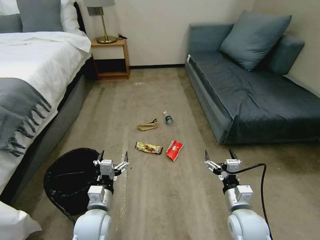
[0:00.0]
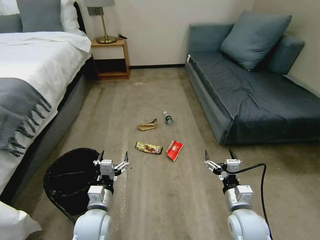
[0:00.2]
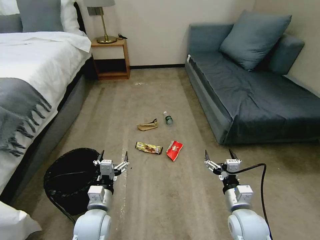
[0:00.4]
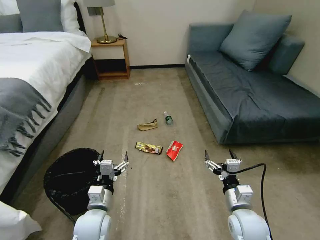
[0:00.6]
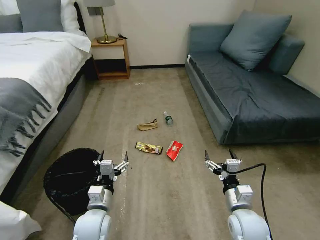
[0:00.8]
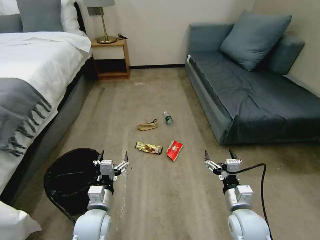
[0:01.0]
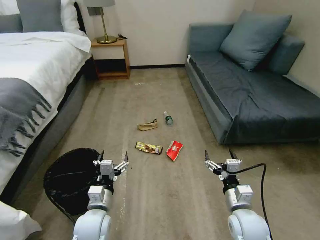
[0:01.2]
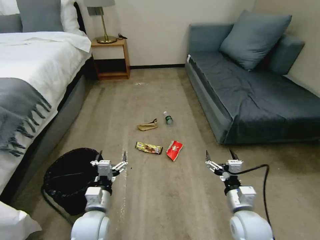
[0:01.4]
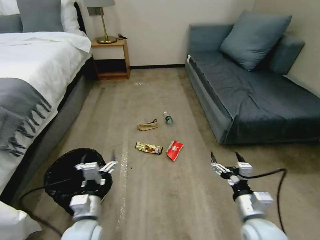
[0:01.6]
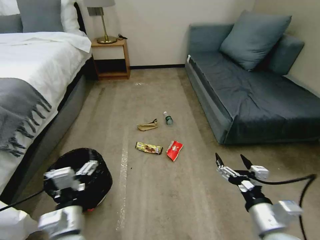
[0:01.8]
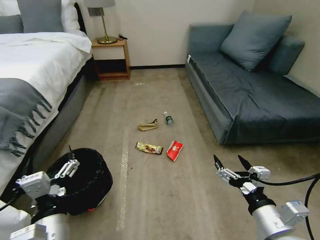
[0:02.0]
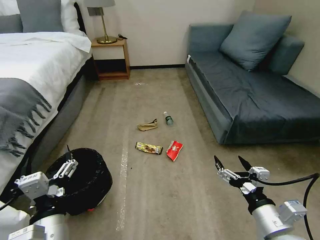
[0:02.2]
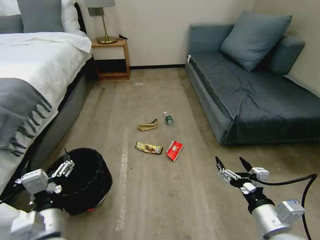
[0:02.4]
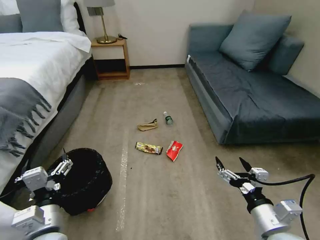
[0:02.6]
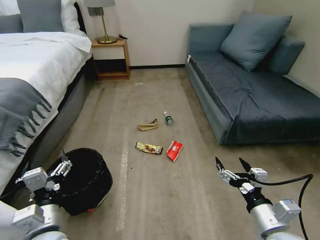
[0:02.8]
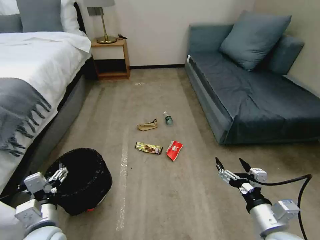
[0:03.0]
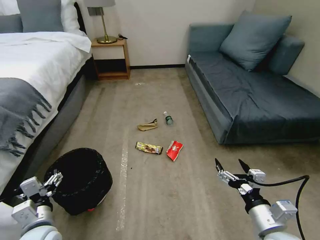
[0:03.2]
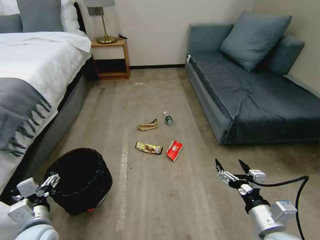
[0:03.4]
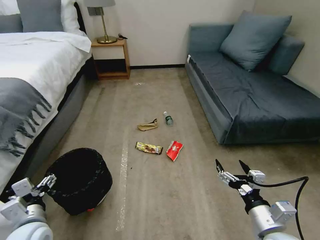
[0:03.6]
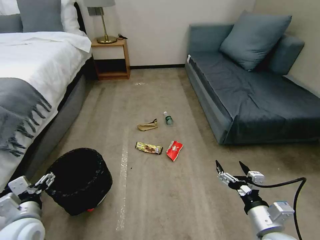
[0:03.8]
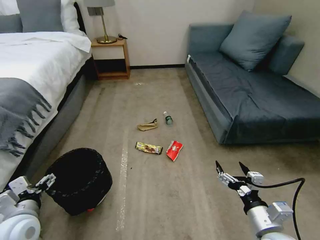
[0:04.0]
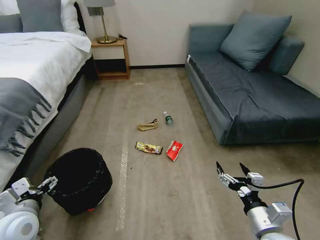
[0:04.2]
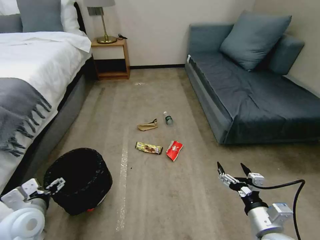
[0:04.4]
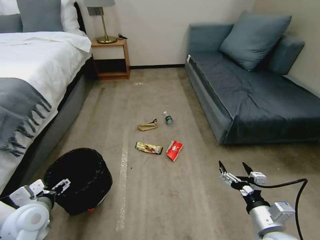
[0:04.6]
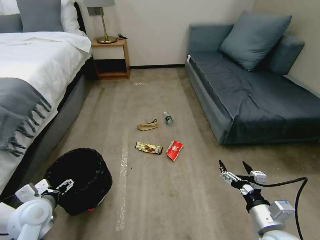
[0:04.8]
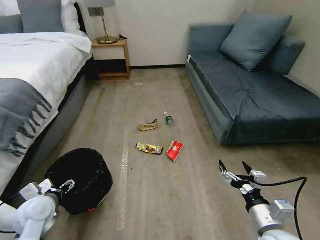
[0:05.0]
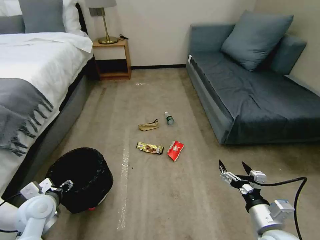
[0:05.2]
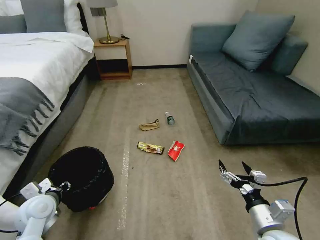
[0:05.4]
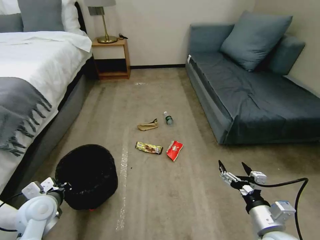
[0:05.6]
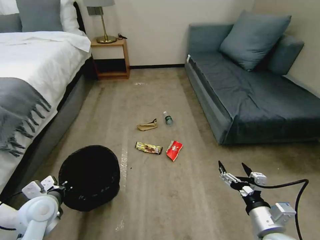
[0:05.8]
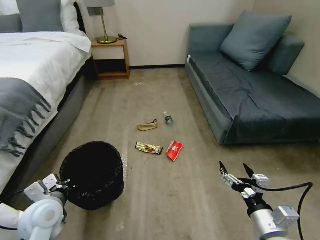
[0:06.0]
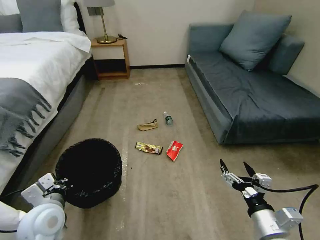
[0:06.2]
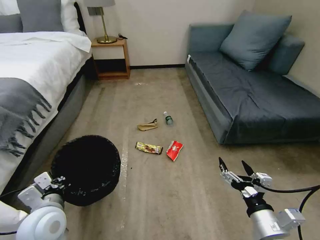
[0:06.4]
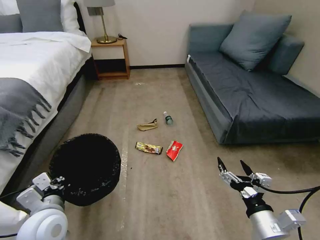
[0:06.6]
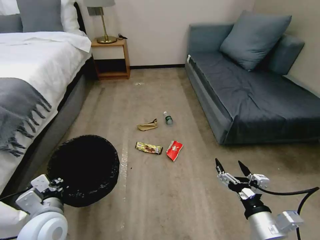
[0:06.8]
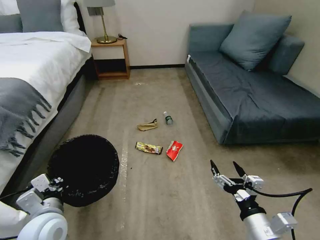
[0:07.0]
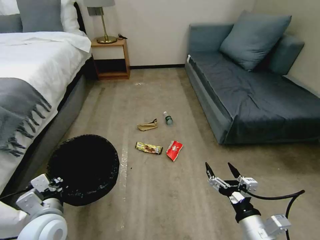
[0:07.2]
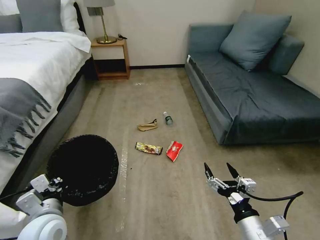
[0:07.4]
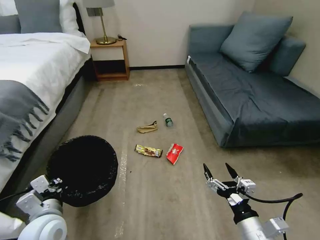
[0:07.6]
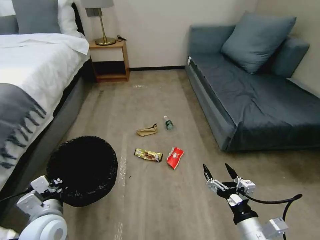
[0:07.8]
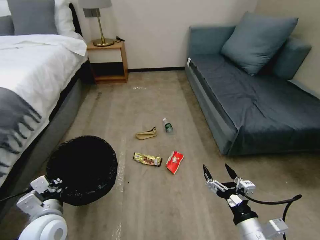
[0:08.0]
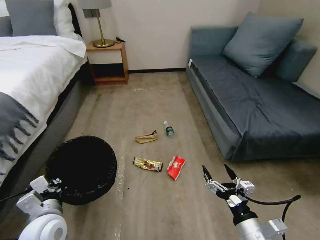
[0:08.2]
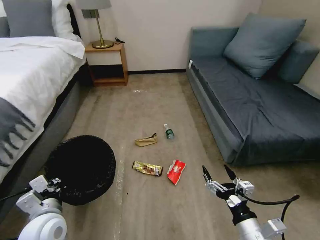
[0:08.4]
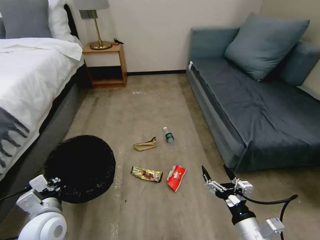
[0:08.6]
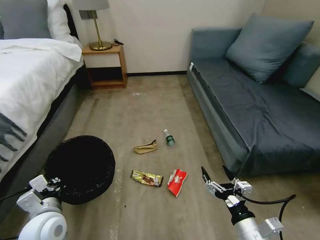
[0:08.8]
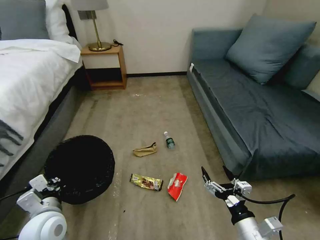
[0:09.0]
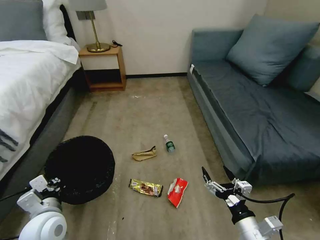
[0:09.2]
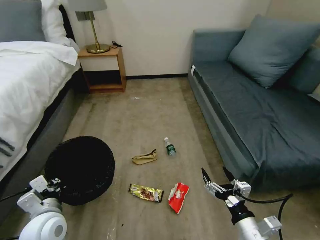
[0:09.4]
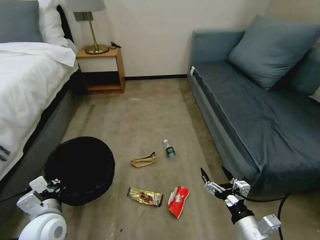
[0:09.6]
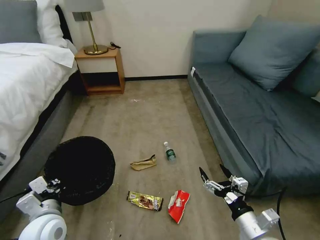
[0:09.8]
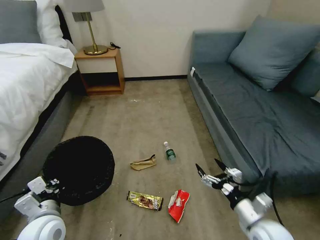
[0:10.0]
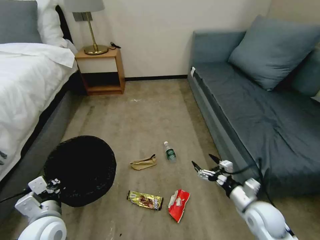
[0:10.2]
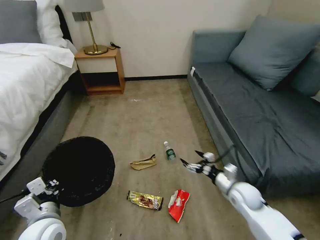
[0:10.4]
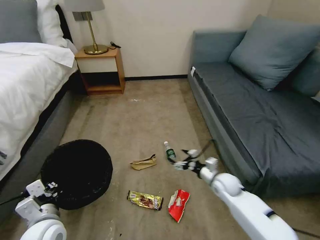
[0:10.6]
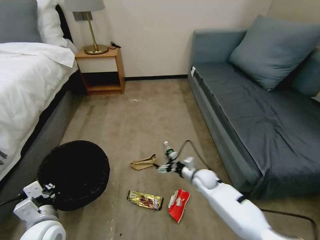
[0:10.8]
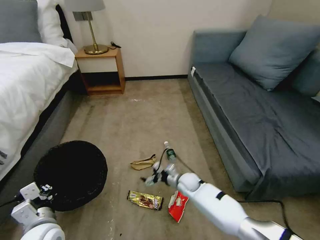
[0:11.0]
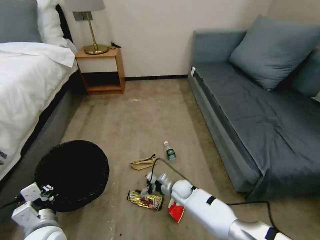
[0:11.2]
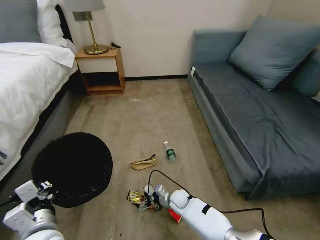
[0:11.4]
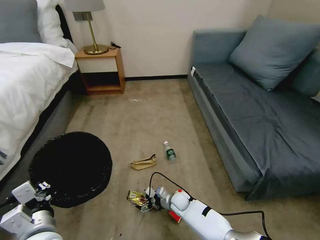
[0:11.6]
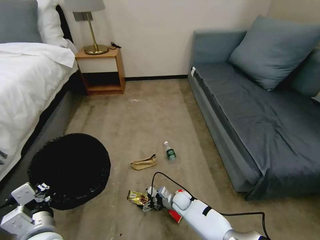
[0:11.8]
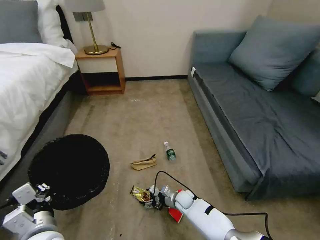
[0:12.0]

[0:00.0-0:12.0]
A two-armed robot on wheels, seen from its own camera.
Task of the whole recording: Pick up the trash bin, then pick up the garbage on the floor and place it into the trash bin.
0:01.6 to 0:03.0: The left gripper is displaced to the left by some 10 cm.
0:03.0 to 0:04.4: The left gripper is displaced to the left by about 5 cm.
0:04.4 to 0:06.0: The left gripper closes its fingers.
0:06.0 to 0:07.6: The left gripper moves about 5 cm.
0:09.0 to 0:10.4: The right gripper is displaced forward by roughly 20 cm.
0:10.4 to 0:12.0: The right gripper heads downward and to the left, covering some 25 cm.

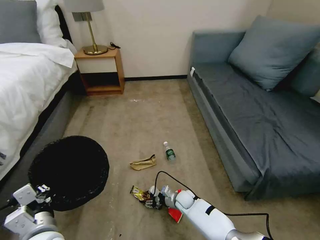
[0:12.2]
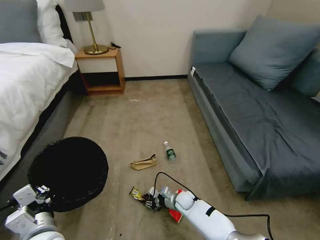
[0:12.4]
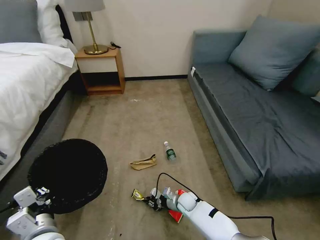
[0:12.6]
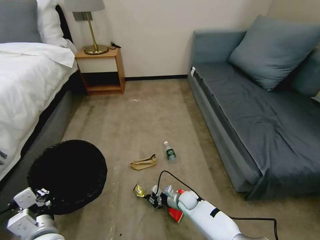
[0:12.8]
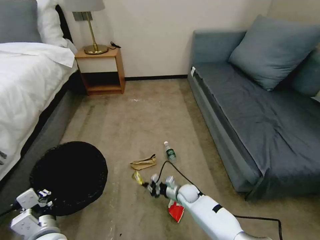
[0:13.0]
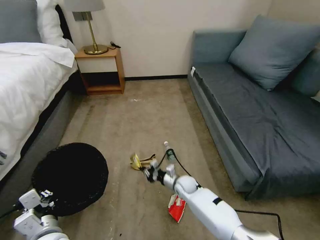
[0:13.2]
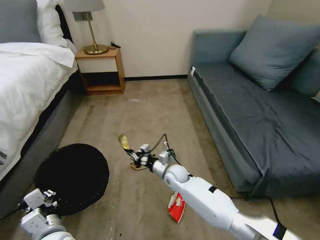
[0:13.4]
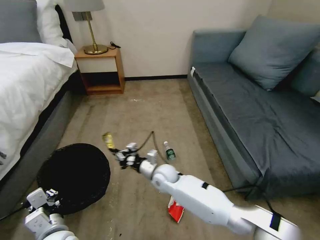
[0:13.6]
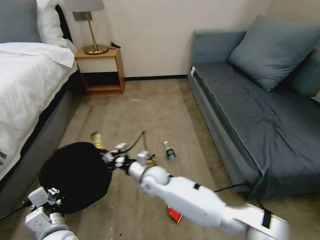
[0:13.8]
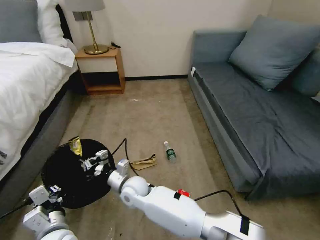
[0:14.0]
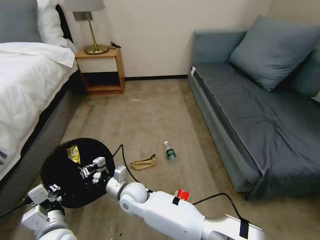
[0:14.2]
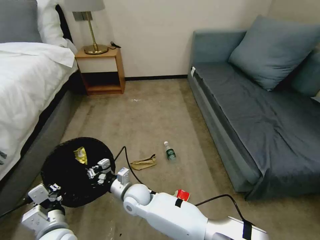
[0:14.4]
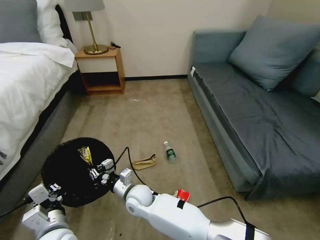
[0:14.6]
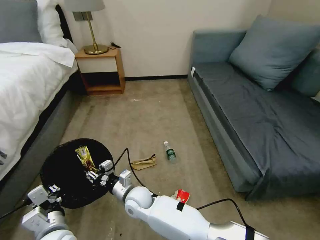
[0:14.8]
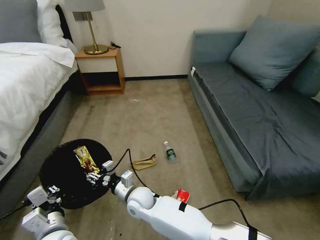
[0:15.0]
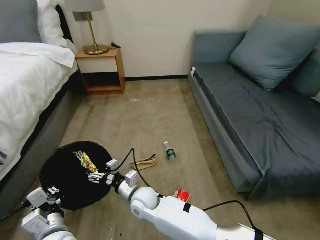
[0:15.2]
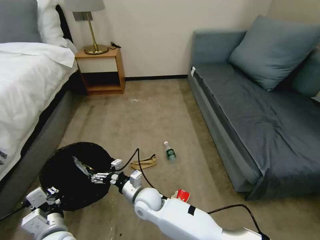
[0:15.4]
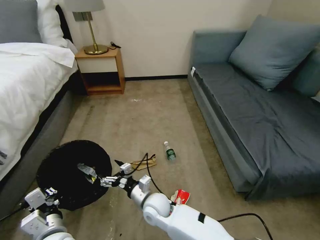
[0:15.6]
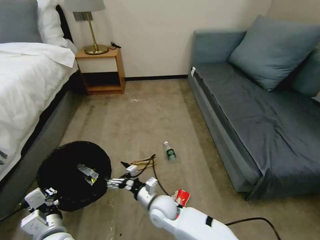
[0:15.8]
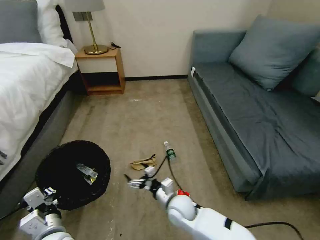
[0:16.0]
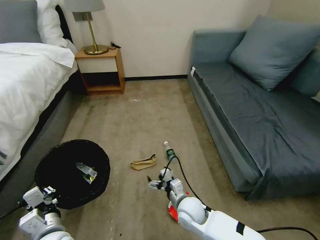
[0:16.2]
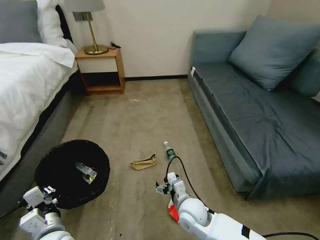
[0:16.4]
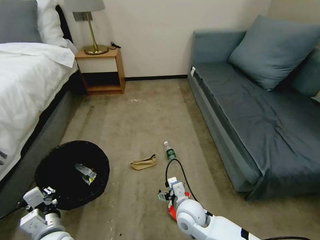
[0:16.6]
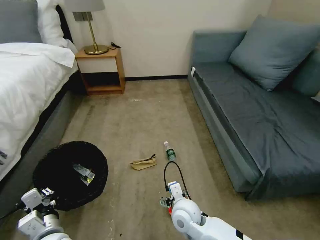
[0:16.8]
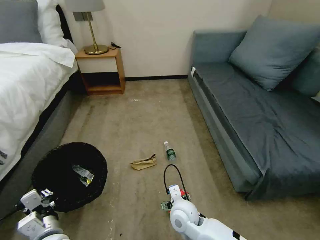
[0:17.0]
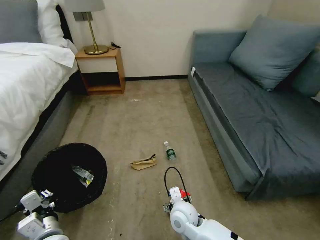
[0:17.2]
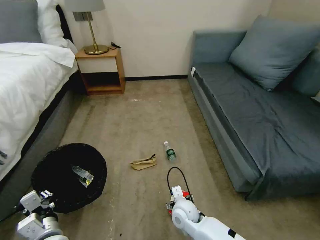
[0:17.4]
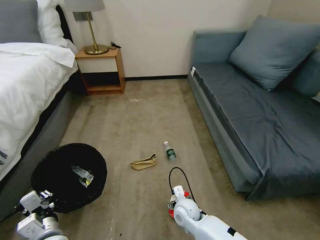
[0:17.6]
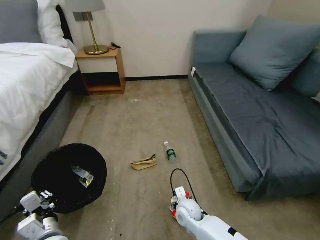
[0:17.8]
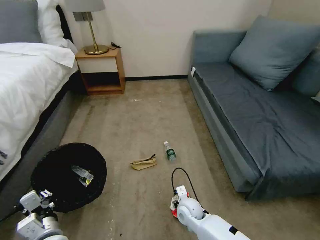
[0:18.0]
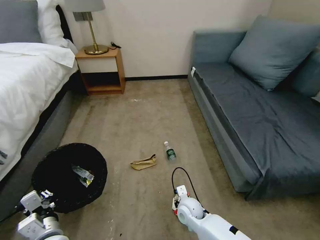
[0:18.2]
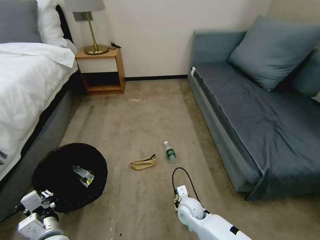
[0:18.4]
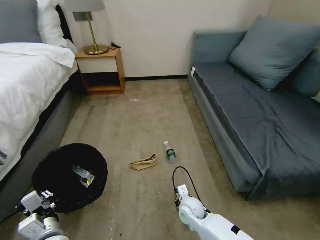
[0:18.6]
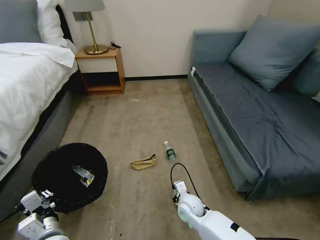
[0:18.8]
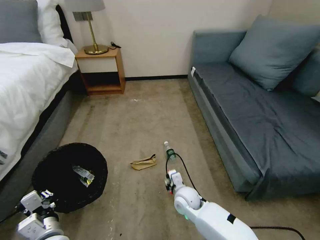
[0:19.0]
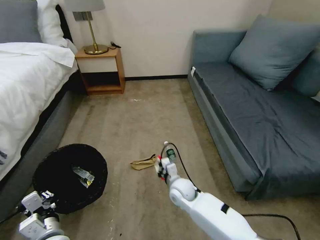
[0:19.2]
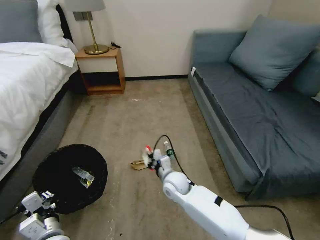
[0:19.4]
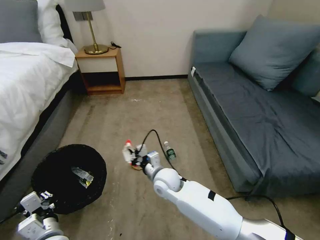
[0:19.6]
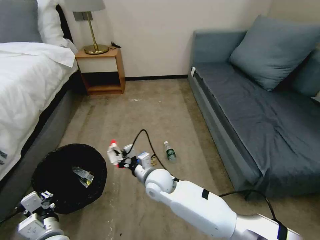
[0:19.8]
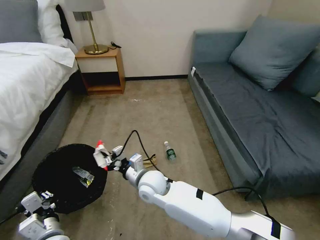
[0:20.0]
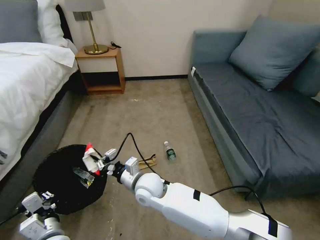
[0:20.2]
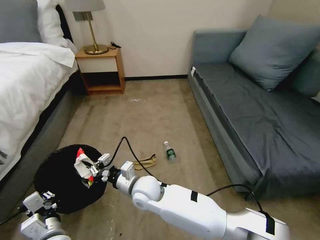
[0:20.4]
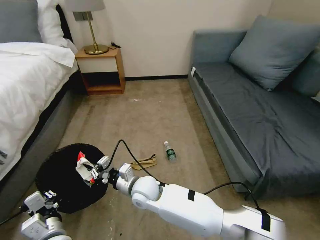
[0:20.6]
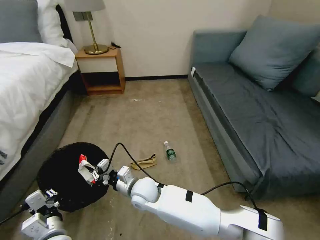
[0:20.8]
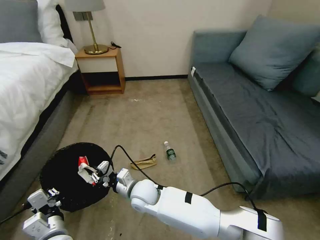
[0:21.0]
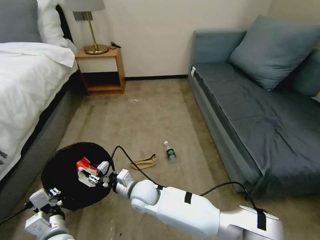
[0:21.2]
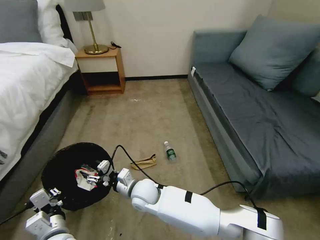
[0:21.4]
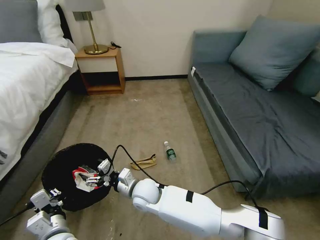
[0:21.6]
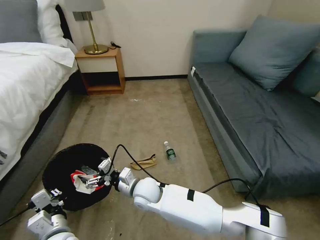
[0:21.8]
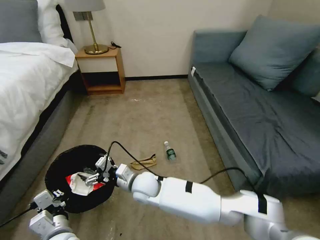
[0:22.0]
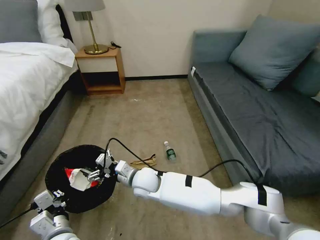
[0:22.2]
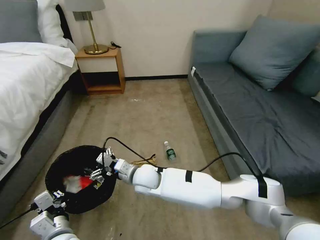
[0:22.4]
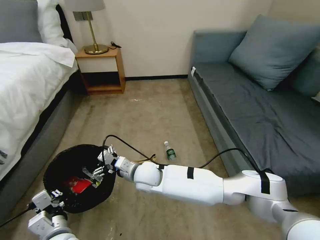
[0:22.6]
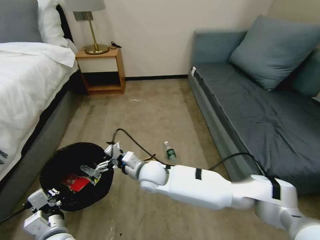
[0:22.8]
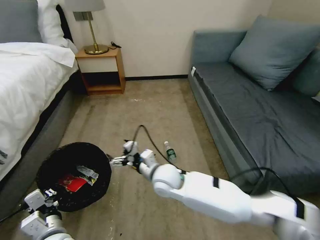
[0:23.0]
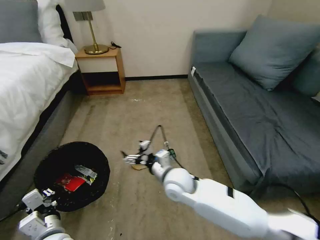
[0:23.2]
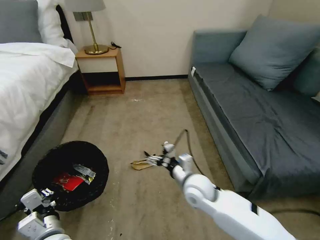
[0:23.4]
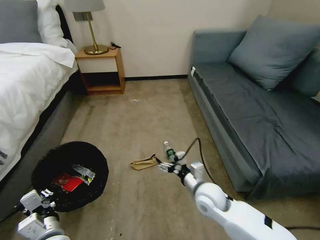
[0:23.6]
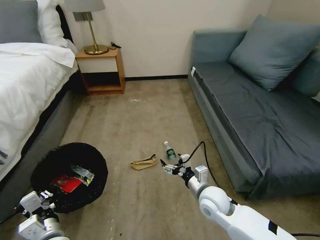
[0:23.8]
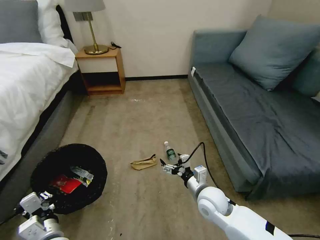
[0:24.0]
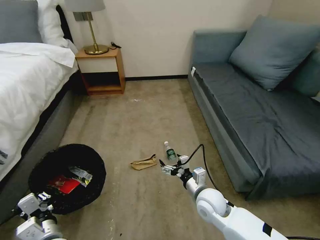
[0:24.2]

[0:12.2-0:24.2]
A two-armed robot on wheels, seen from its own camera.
Task of the whole recording: Pick up the trash bin, then pick up the garbage on the floor and place it into the trash bin.
0:12.2 to 0:13.8: The right gripper moves upward and to the left, some 30 cm, and closes up.
0:13.8 to 0:15.2: The right gripper changes place by approximately 5 cm, and opens.
0:15.2 to 0:16.6: The right gripper goes approximately 15 cm to the right.
0:16.6 to 0:18.2: The right gripper heads downward, covering approximately 10 cm, and closes.
0:18.2 to 0:19.8: The right gripper moves upward and to the left, roughly 20 cm, and closes up.
0:19.8 to 0:21.2: The right gripper is displaced to the left by approximately 5 cm.
0:21.2 to 0:22.6: The right gripper moves some 5 cm, and opens.
0:22.6 to 0:24.2: The right gripper heads to the right, covering approximately 20 cm.
